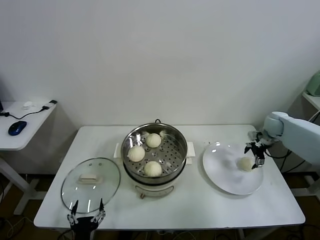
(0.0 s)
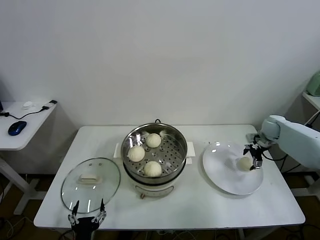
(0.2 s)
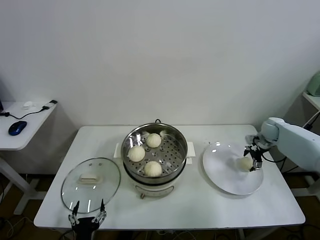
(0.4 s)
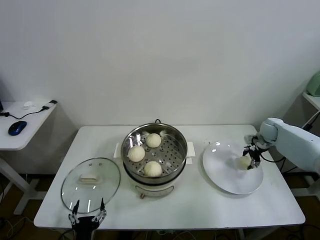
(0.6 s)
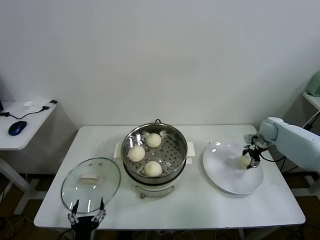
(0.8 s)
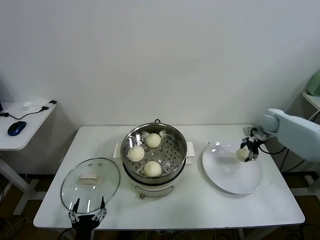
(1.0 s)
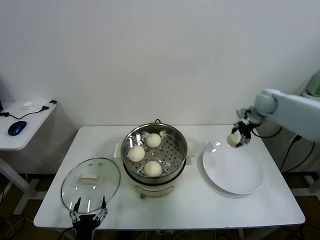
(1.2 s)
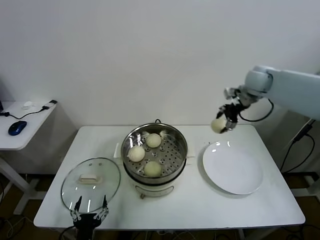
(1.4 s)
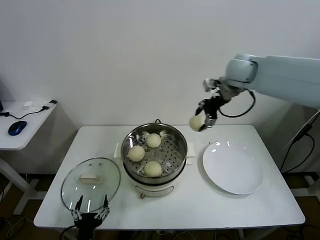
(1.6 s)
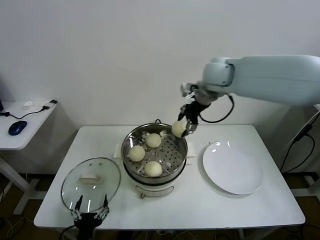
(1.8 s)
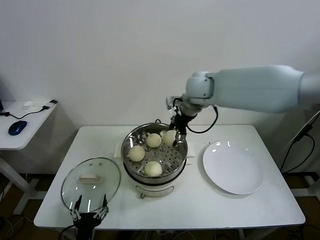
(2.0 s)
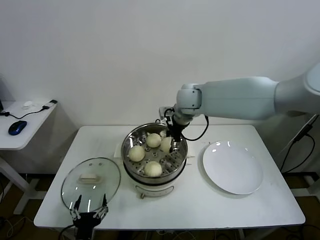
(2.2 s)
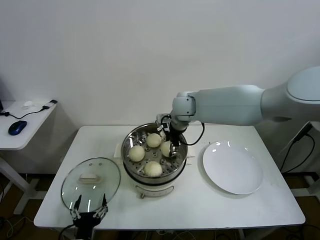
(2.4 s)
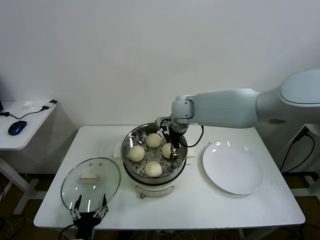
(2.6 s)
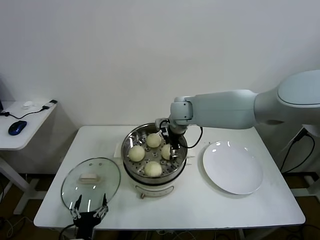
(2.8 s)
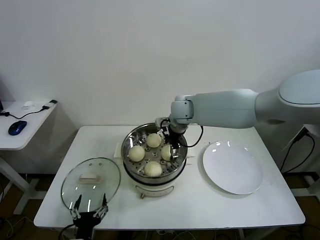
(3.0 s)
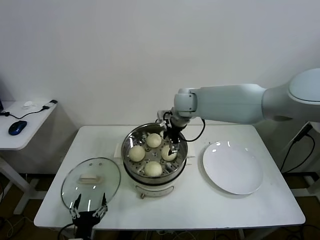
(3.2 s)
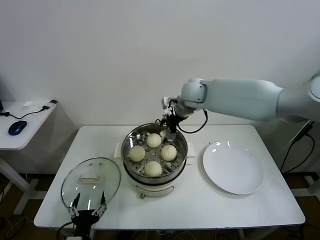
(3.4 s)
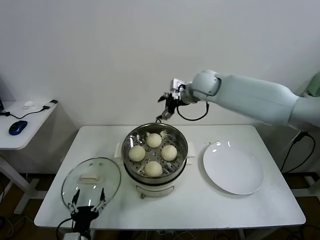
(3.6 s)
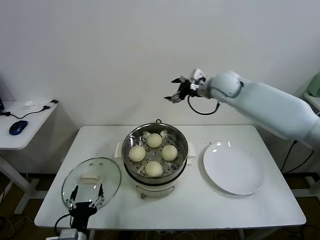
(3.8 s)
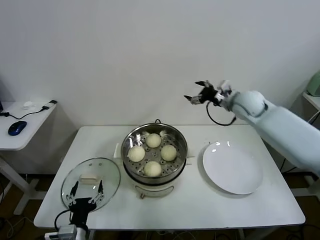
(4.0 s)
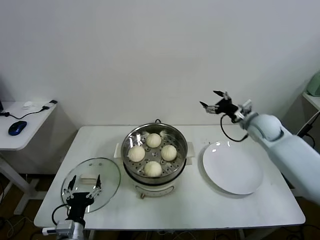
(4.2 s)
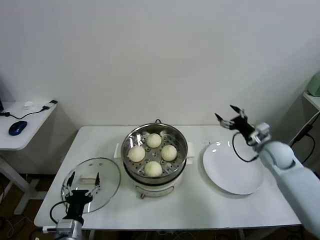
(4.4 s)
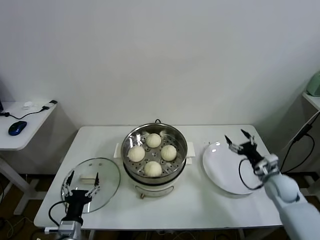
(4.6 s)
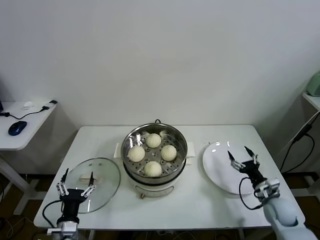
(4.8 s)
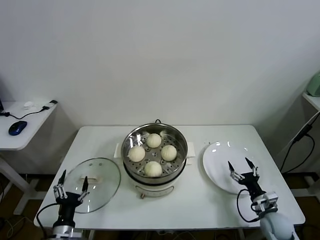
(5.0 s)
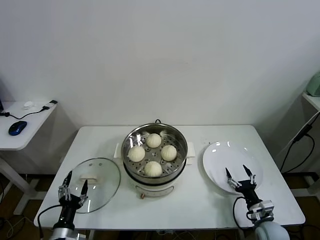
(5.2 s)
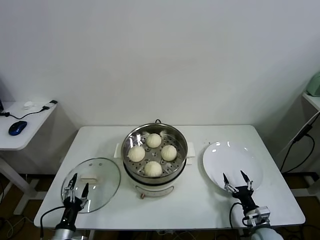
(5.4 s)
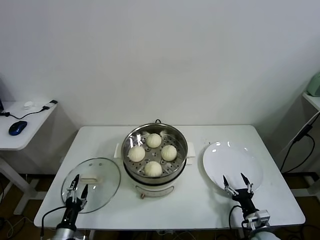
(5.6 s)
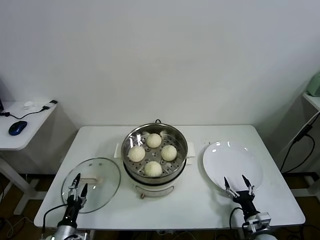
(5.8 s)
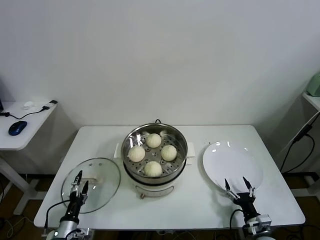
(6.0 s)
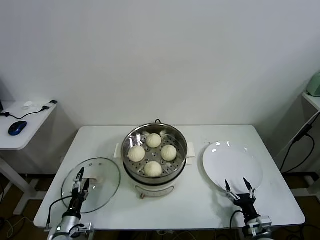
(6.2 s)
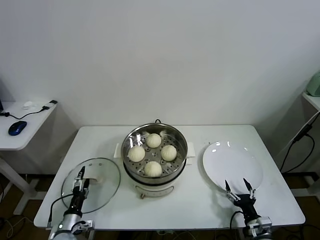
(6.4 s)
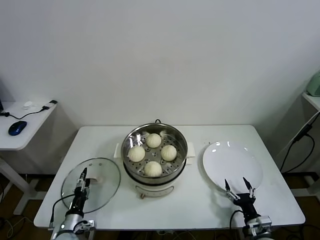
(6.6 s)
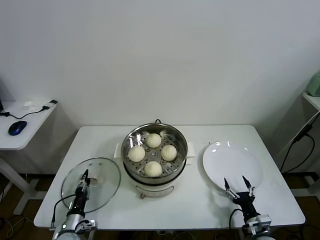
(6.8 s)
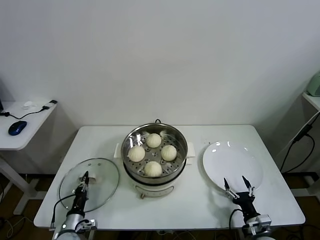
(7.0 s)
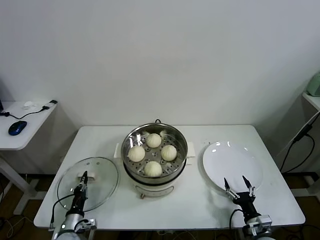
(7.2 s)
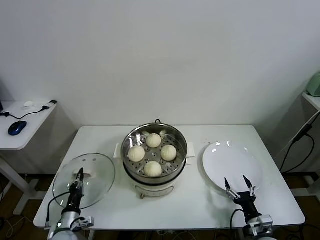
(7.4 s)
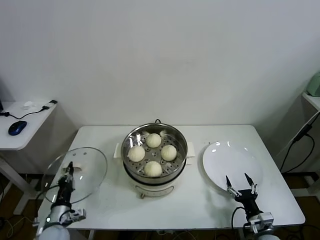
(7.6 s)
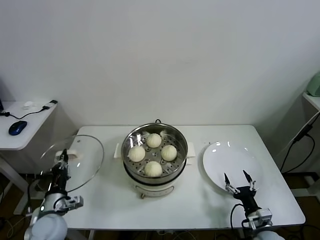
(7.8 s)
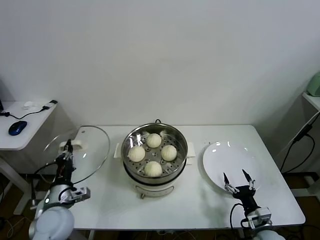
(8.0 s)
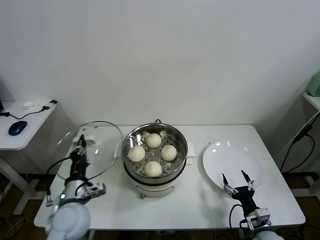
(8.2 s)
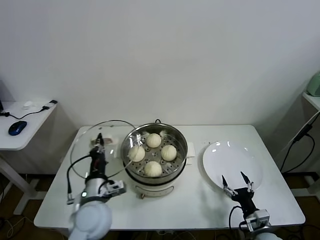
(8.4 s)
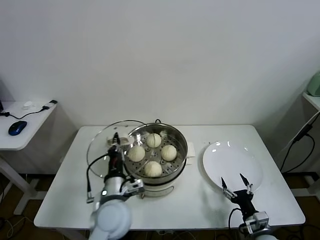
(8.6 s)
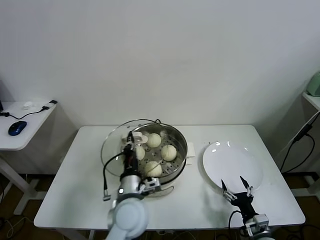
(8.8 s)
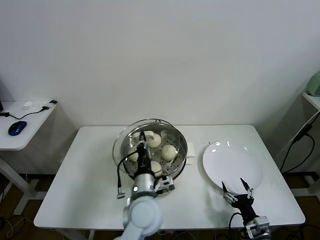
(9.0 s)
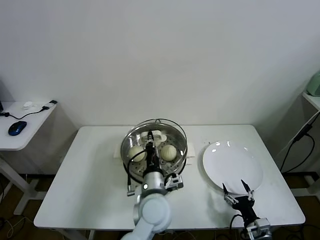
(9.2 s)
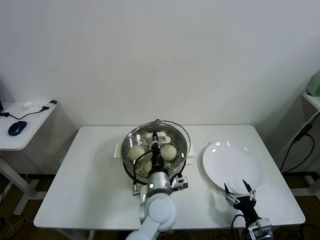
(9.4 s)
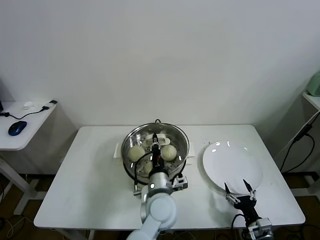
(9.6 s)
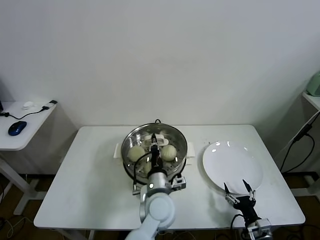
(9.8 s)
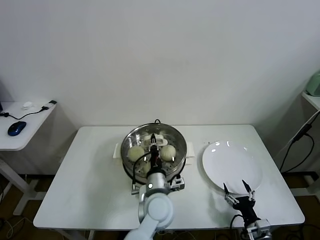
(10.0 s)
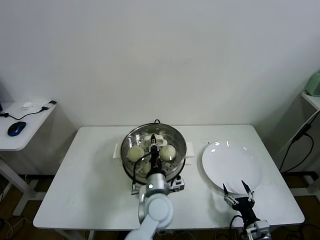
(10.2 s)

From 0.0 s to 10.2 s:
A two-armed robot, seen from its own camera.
Task of the whole recording: take steamed baozi put them in steamer.
Step, from 0.8 s to 3.0 s: Place the baozi on the steamer with right gripper.
Step, from 3.4 s to 7.2 s: Grasp the pot lid with left gripper.
From 0.0 s to 1.4 s: The right gripper heads upward and to the left, covering roughly 25 cm, and closes.
From 1.4 s to 3.0 s: The right gripper travels to the left and downward by some 25 cm, and opens its fingers.
From 3.0 s to 4.4 s: The right gripper is displaced to the right and downward by roughly 35 cm; the left gripper moves about 5 cm.
From 4.4 s to 5.8 s: The right gripper shifts approximately 30 cm backward and downward. The left gripper shifts approximately 15 cm downward and to the left.
From 5.8 s to 7.2 s: The left gripper changes place by about 5 cm, and closes.
From 7.2 s to 8.8 s: The left gripper moves to the right and upward, about 35 cm.
From 8.8 s to 10.2 s: The left gripper goes roughly 10 cm to the right.

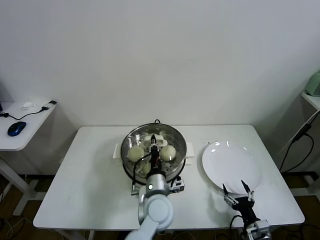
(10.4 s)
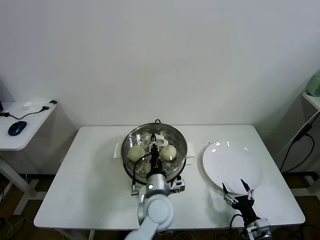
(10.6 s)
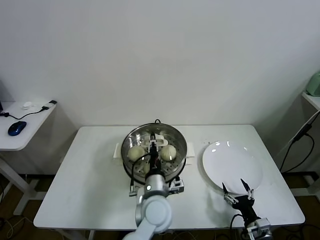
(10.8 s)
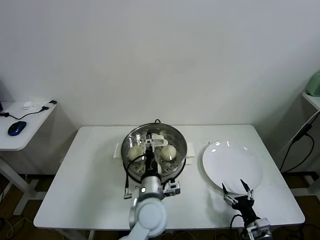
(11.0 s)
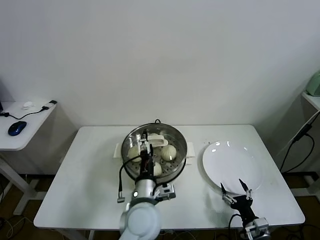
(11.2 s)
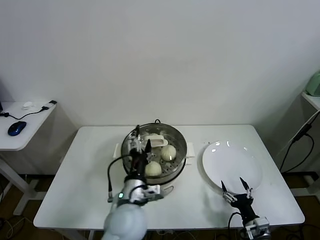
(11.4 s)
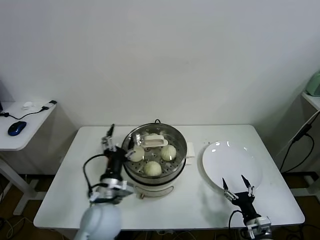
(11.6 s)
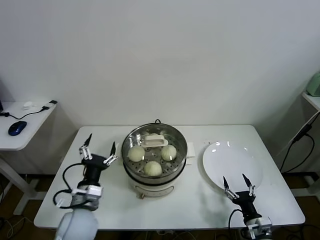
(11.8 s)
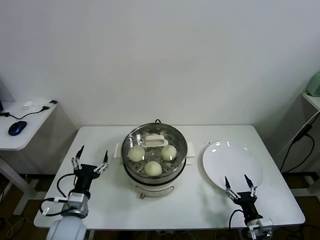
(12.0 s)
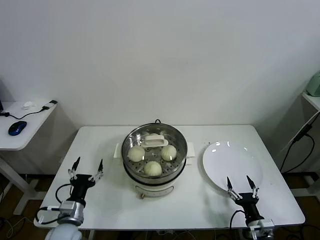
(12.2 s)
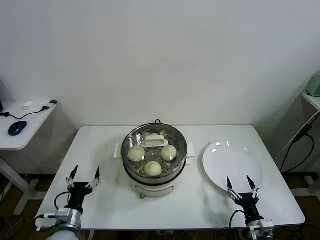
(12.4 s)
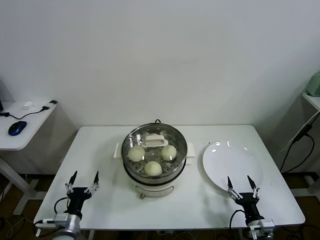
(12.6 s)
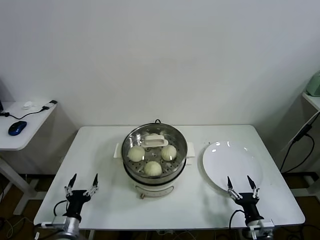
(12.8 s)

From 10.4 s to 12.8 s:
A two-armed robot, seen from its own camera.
Task of the whole recording: take steamed baozi put them in steamer.
From 10.4 s to 11.6 s: The left gripper moves to the left and upward, roughly 15 cm, and opens.
From 11.6 s to 12.8 s: The left gripper heads to the left and downward, covering approximately 25 cm.

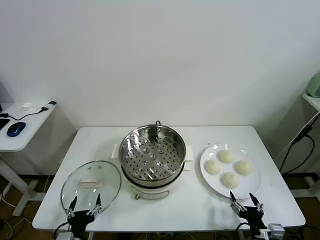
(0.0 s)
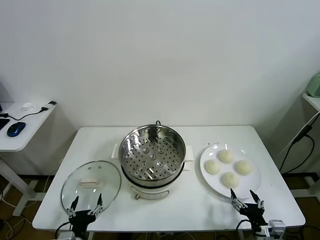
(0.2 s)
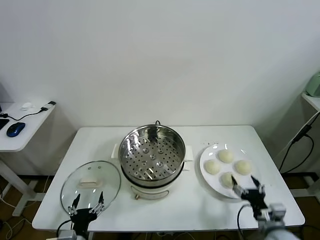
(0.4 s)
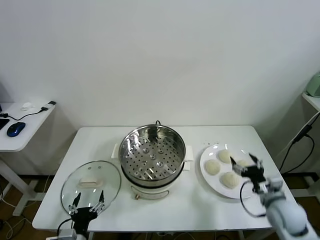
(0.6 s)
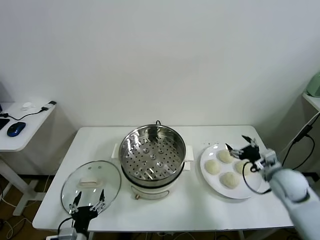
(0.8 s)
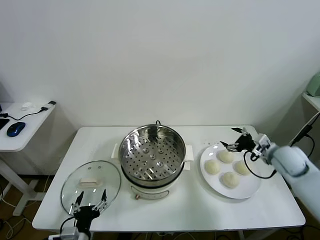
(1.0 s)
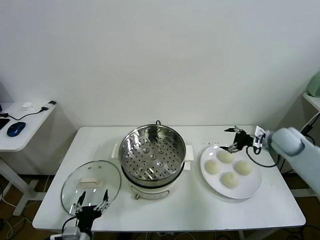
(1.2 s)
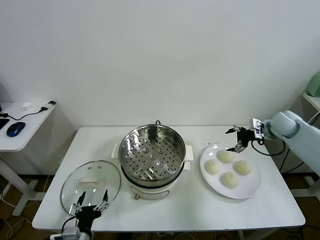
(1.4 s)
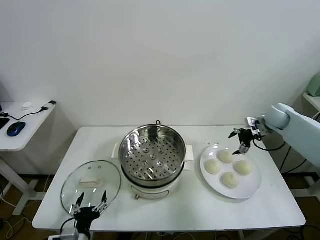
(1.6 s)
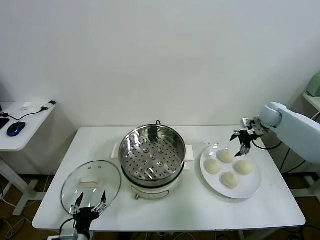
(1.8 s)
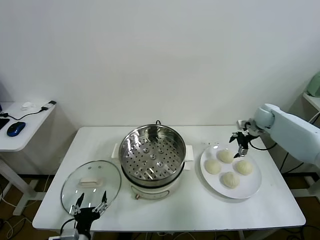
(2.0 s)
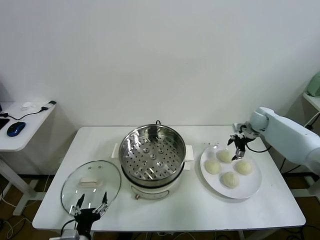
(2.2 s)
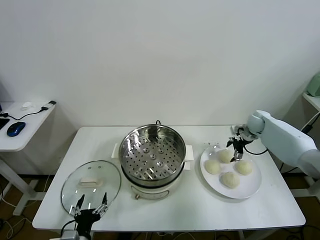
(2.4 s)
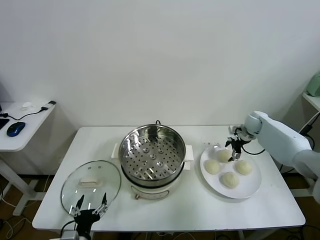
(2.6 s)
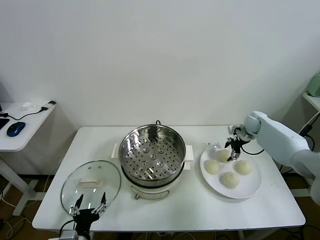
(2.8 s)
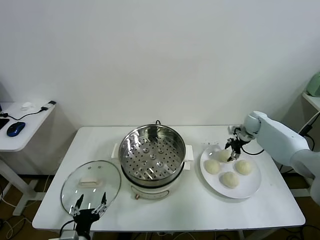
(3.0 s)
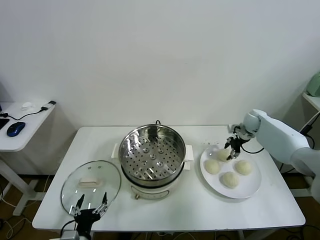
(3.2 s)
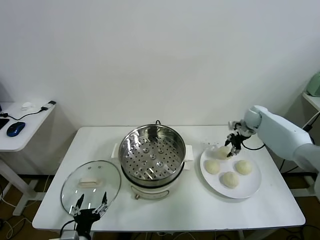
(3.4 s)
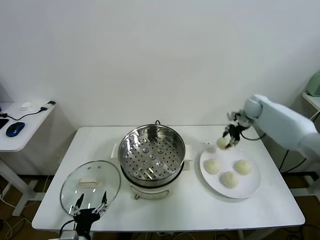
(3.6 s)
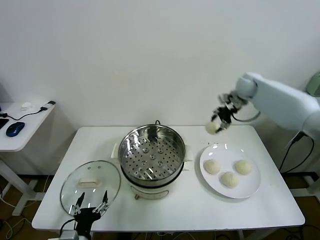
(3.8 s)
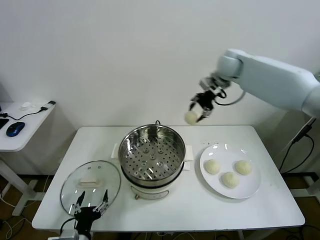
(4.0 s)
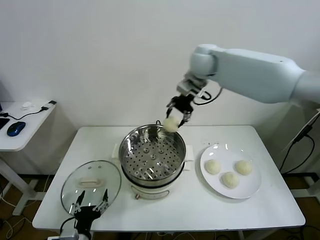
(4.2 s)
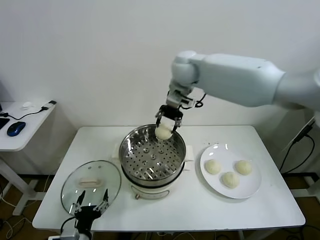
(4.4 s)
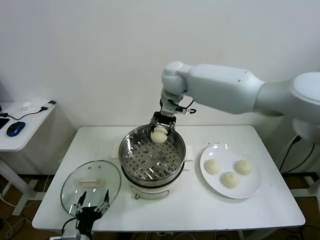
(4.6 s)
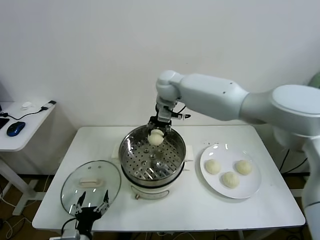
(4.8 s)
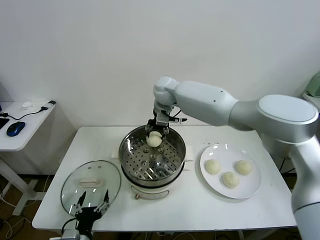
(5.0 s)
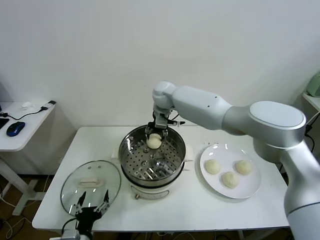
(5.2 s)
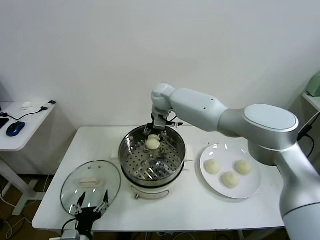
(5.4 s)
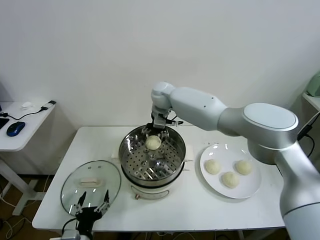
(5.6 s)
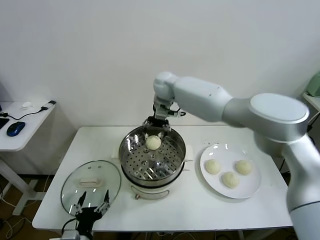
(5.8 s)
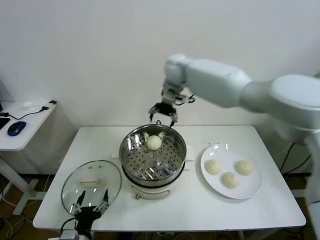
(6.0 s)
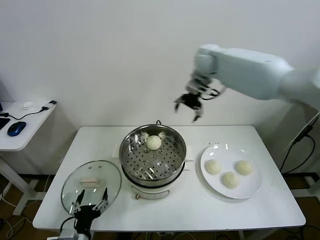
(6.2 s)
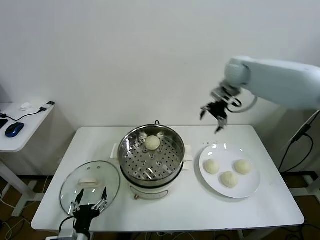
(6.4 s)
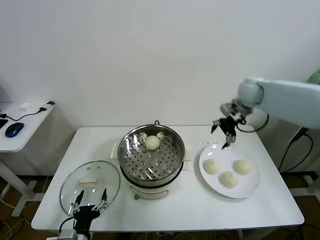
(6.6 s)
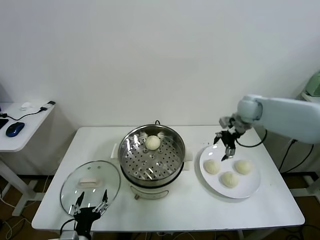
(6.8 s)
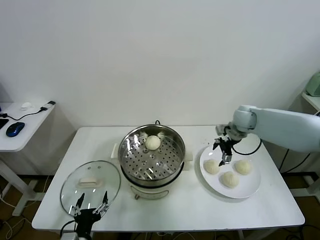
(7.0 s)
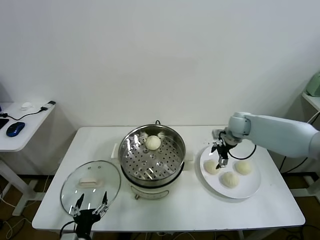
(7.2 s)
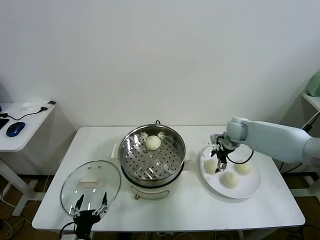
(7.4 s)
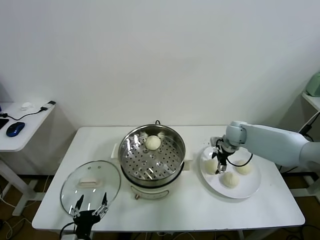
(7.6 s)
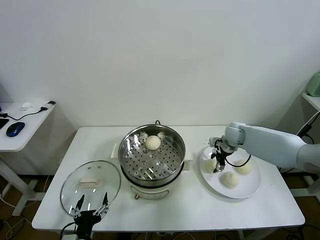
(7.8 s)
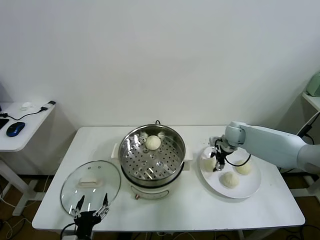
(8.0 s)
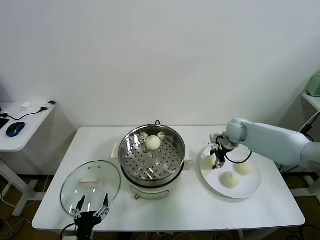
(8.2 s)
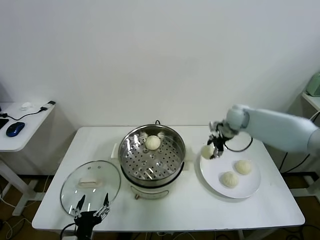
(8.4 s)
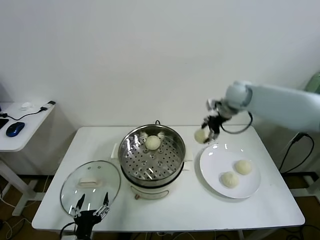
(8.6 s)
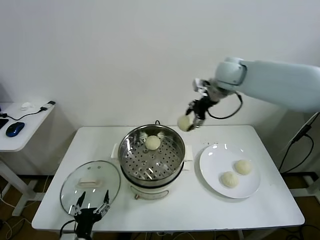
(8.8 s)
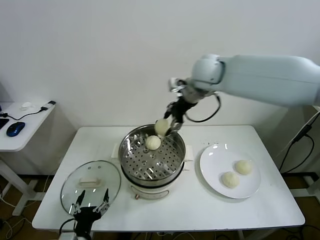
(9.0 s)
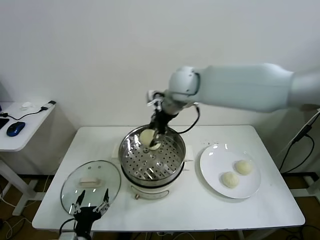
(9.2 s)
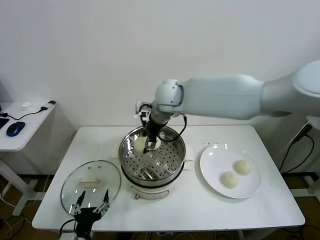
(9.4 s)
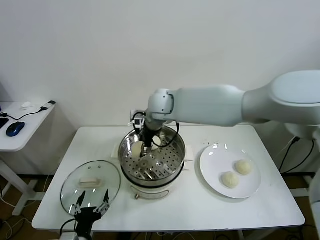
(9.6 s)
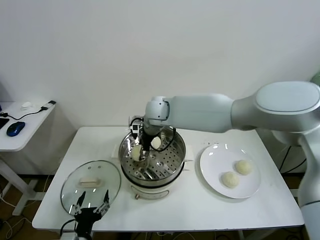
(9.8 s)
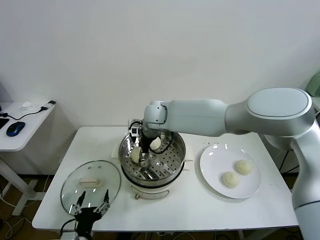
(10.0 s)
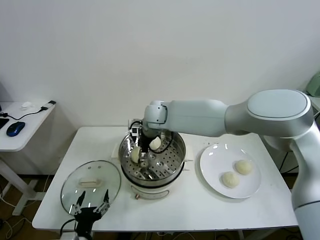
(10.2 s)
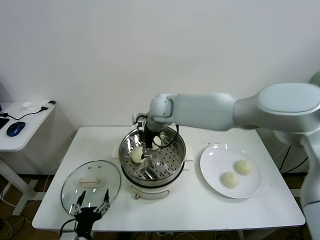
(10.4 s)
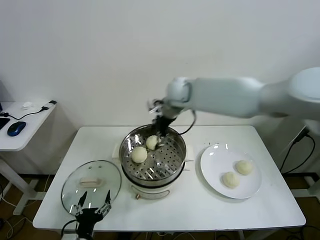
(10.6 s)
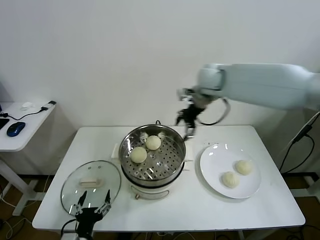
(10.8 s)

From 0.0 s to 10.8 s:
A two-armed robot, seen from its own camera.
Task of the whole recording: take steamed baozi put them in steamer.
Step, from 0.0 s to 3.0 s: Grasp the baozi in the plate with right gripper.
Step, from 3.2 s to 5.8 s: Place the baozi on the steamer with right gripper.
Step, from 6.0 s to 7.8 s: Grasp the baozi in the plate with right gripper.
Step, from 8.2 s to 10.4 s: Place the baozi on the steamer with right gripper.
From 1.6 s to 3.0 s: The right gripper goes some 10 cm downward, and closes.
From 3.0 s to 4.6 s: The right gripper shifts about 40 cm to the left and upward, and closes.
From 4.6 s to 6.2 s: The right gripper travels to the right by some 10 cm, and opens its fingers.
From 6.2 s to 7.8 s: The right gripper heads downward and to the right, covering approximately 30 cm, and closes.
From 7.8 s to 9.2 s: The right gripper shifts some 35 cm upward and to the left.
From 9.2 s to 10.8 s: The right gripper shifts approximately 10 cm to the right, and opens up.
